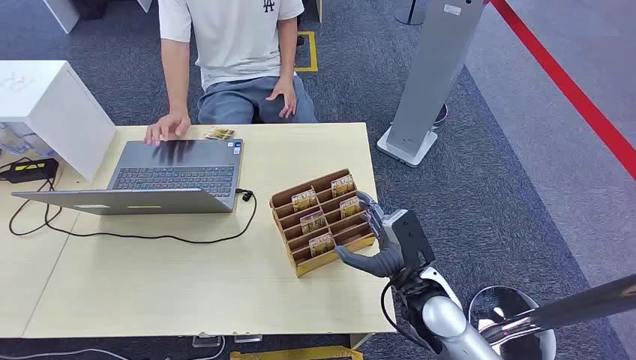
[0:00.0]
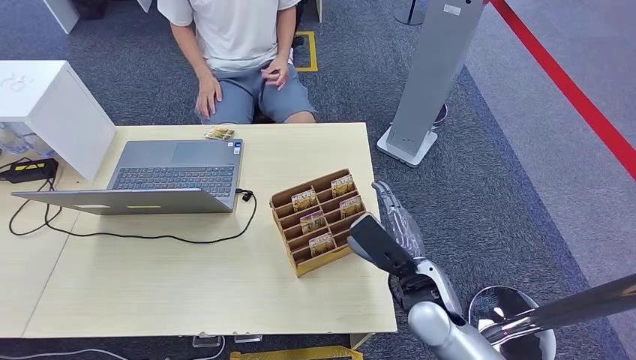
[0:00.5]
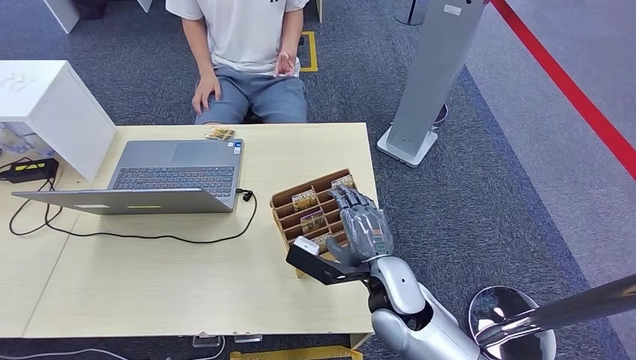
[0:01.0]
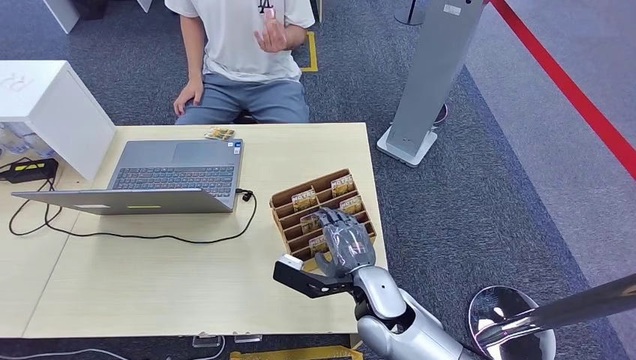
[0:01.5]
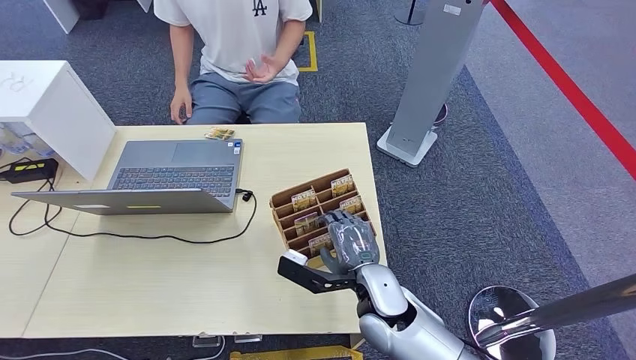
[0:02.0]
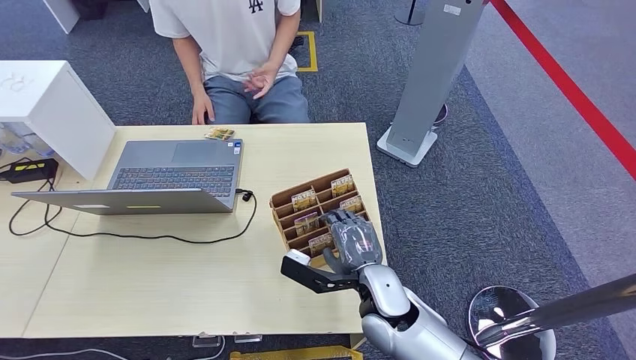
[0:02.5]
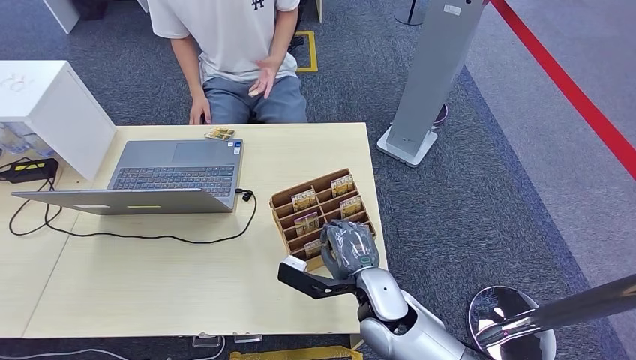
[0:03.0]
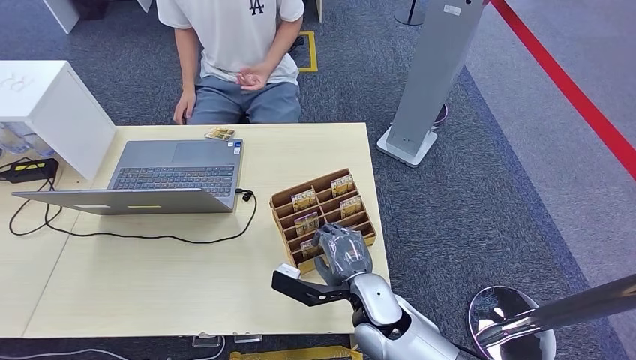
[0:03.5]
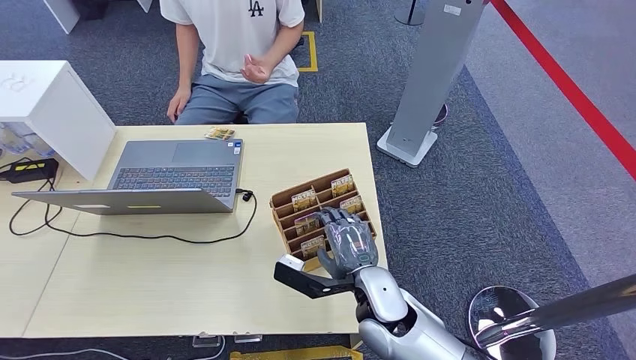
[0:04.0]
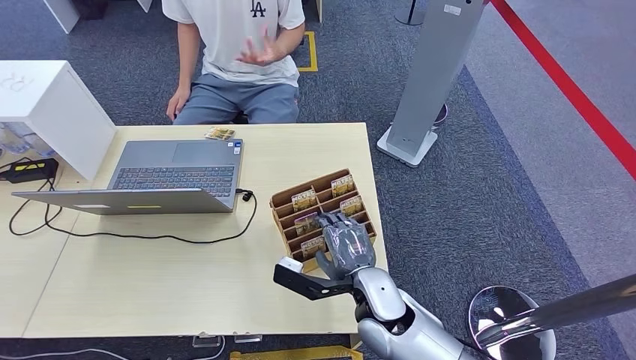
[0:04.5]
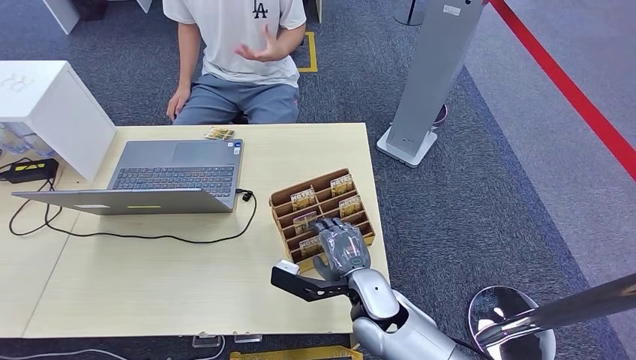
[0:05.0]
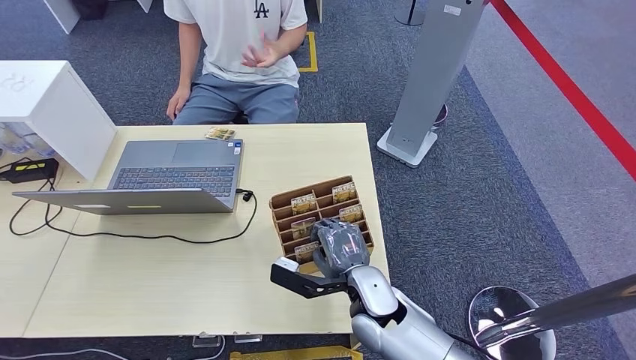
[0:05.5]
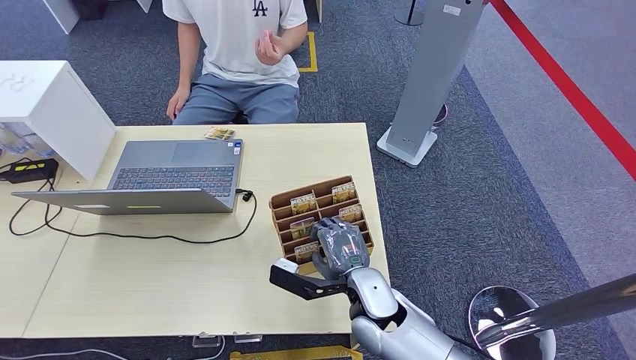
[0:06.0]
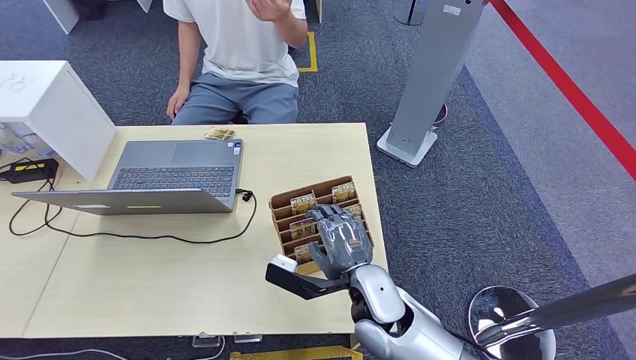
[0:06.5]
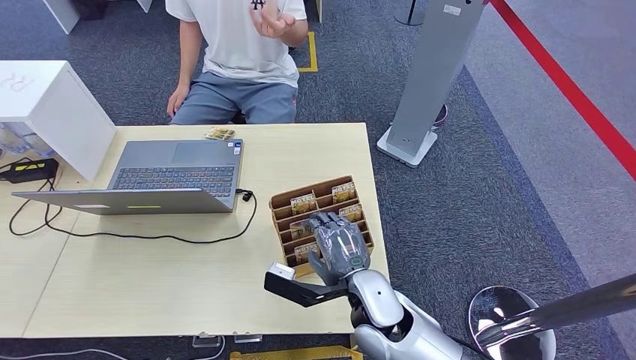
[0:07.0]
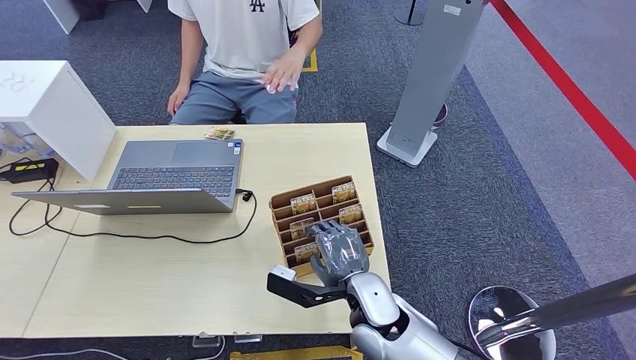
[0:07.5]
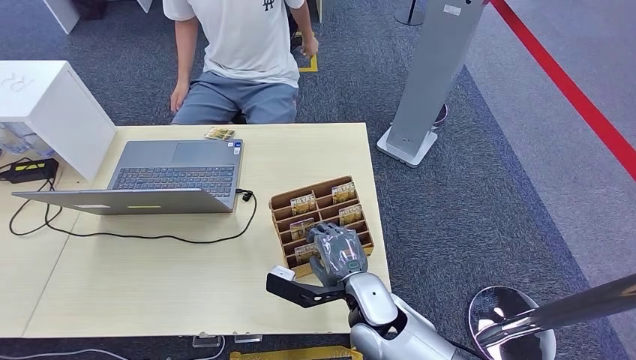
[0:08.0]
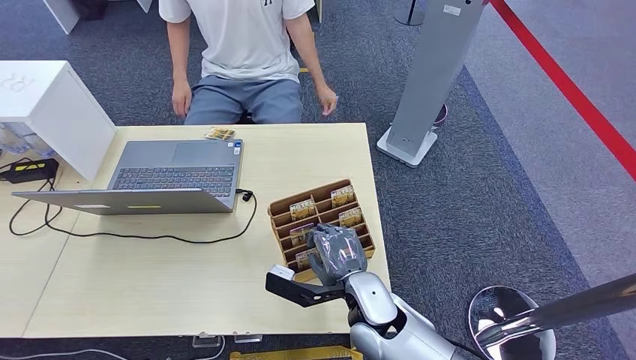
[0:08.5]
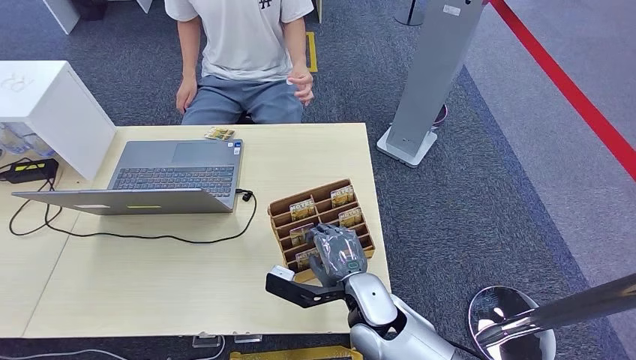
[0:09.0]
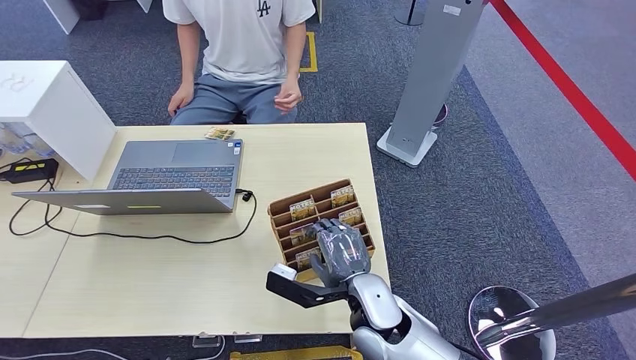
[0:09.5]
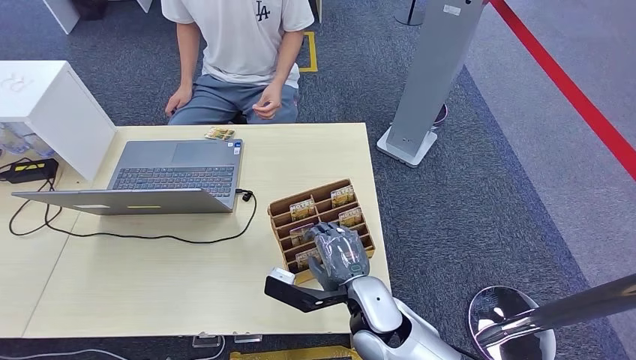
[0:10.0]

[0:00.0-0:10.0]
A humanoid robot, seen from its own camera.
0:02.0 to 0:10.0: The hands move only a little.

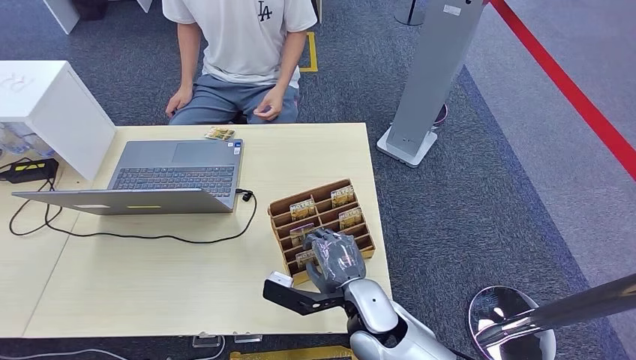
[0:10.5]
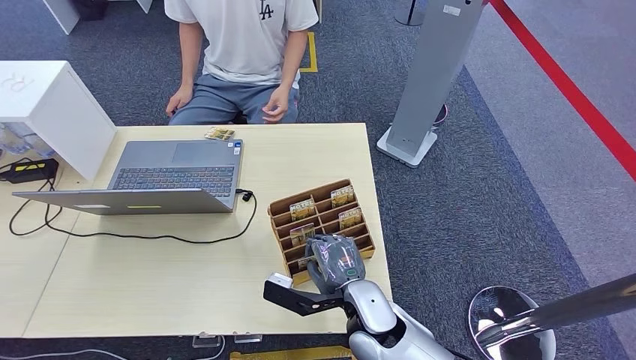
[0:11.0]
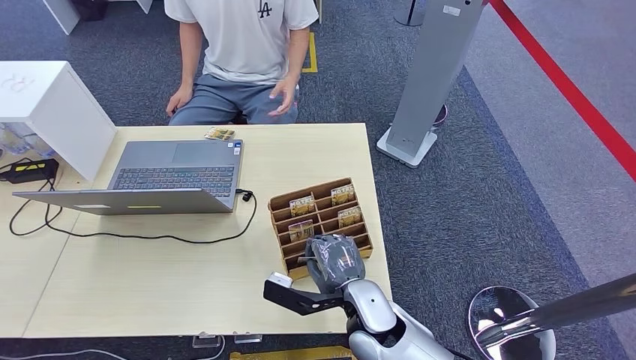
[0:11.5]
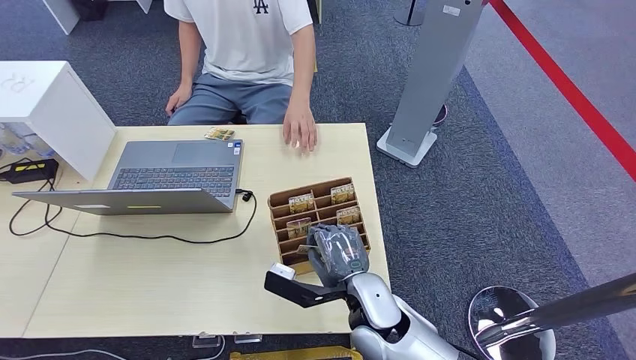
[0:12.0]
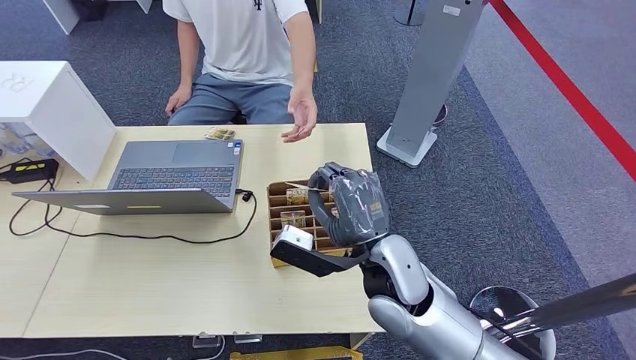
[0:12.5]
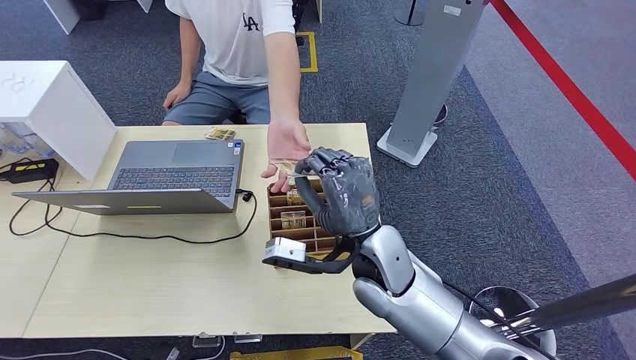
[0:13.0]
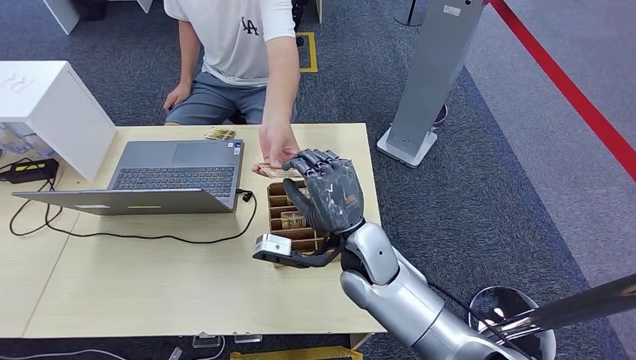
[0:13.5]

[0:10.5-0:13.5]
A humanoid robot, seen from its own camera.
Step, 0:12.5 to 0:13.5: Hand the room card to the target.
0:10.5 to 0:12.0: Both hands stay put.
0:12.0 to 0:13.5: The right hand moves upward and forward, roughly 10 cm.
